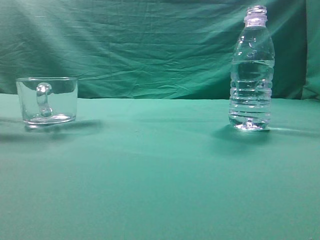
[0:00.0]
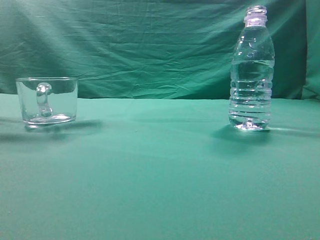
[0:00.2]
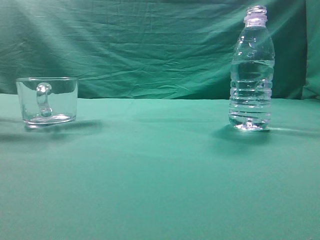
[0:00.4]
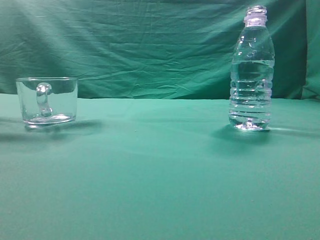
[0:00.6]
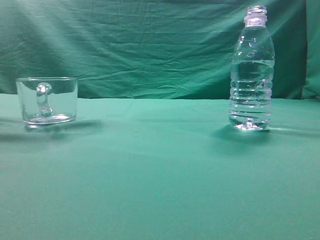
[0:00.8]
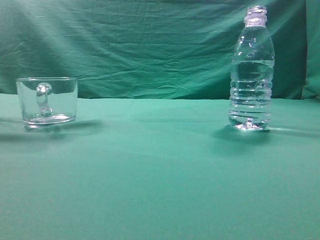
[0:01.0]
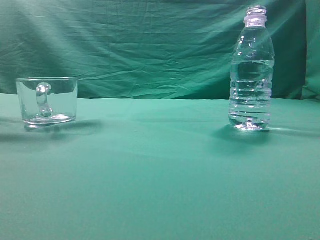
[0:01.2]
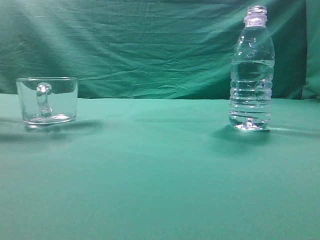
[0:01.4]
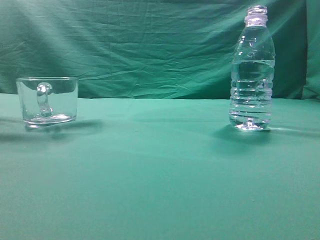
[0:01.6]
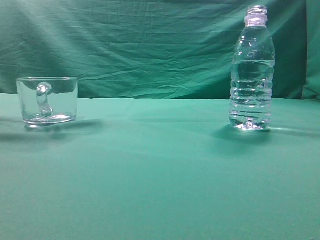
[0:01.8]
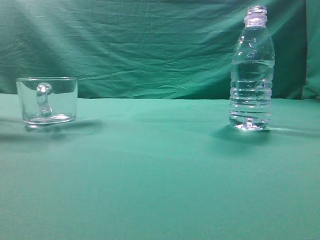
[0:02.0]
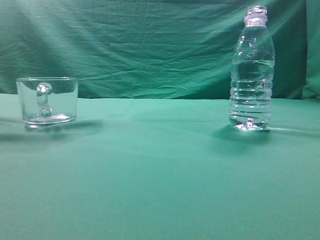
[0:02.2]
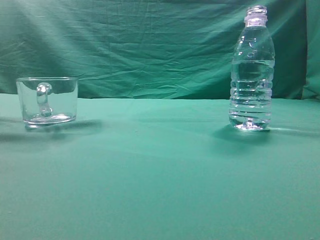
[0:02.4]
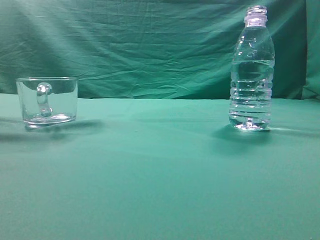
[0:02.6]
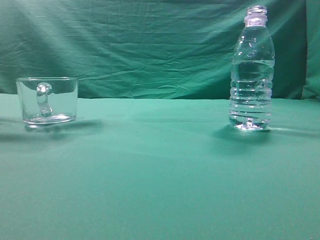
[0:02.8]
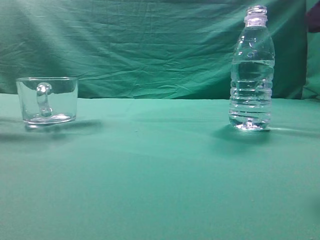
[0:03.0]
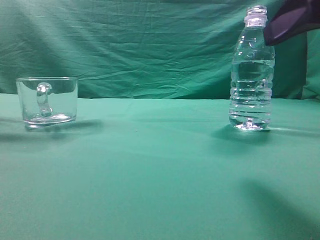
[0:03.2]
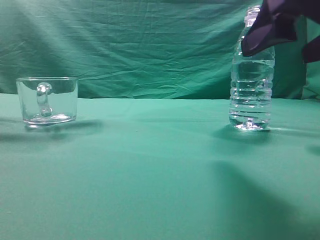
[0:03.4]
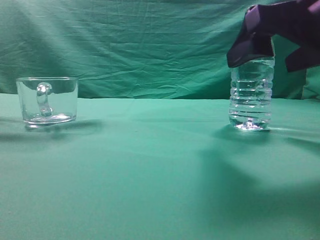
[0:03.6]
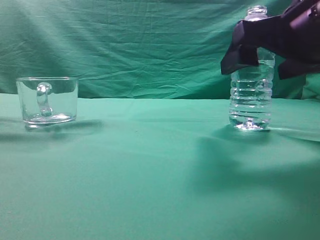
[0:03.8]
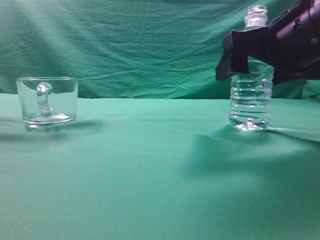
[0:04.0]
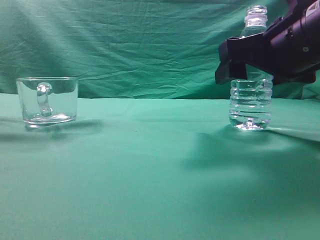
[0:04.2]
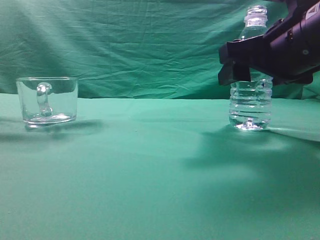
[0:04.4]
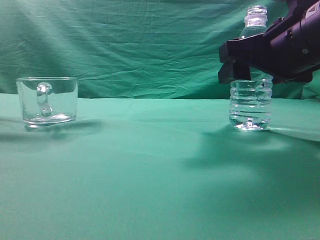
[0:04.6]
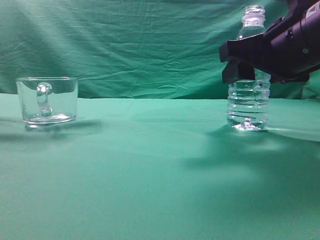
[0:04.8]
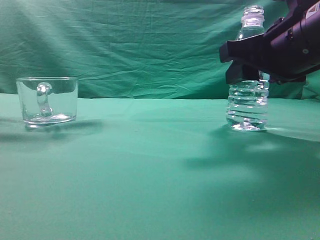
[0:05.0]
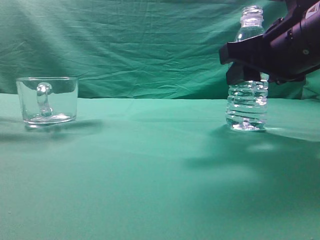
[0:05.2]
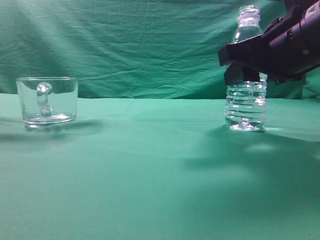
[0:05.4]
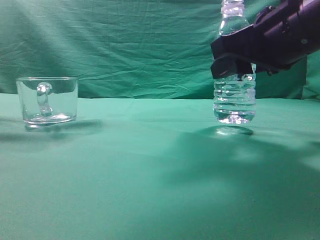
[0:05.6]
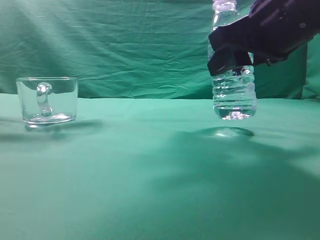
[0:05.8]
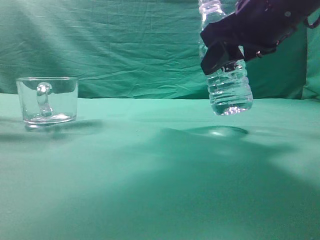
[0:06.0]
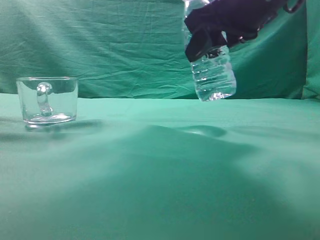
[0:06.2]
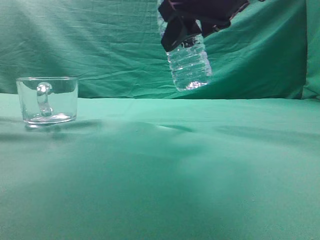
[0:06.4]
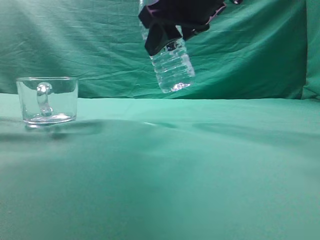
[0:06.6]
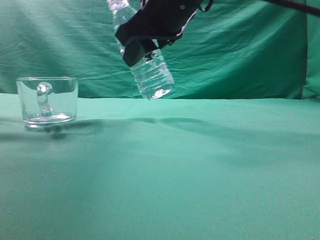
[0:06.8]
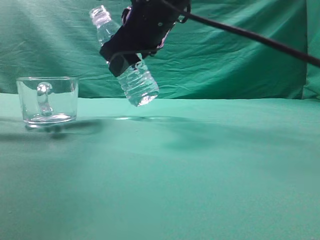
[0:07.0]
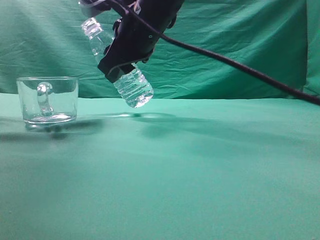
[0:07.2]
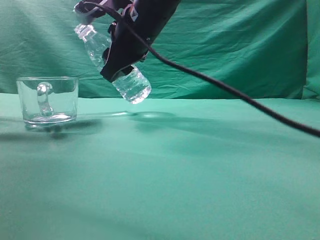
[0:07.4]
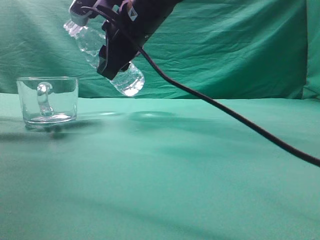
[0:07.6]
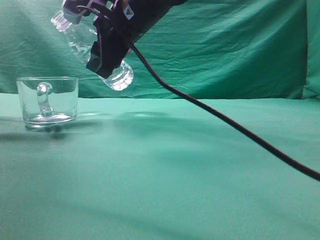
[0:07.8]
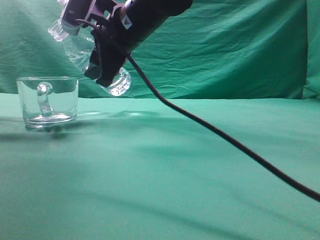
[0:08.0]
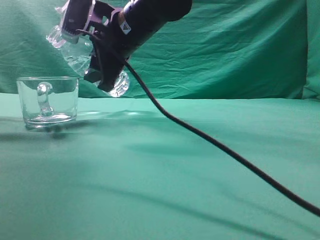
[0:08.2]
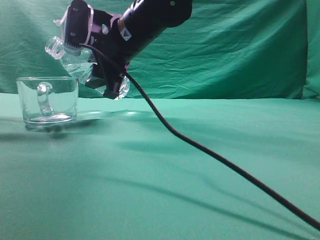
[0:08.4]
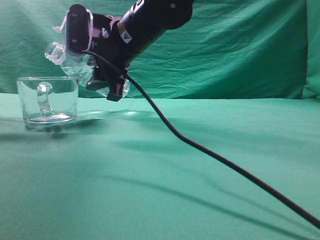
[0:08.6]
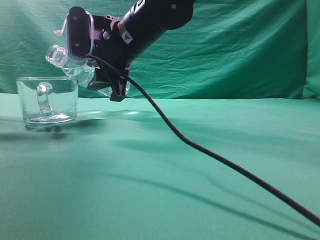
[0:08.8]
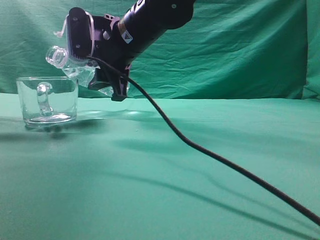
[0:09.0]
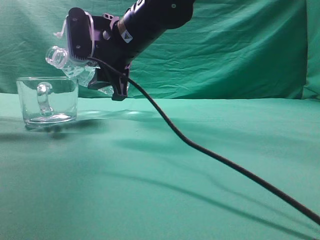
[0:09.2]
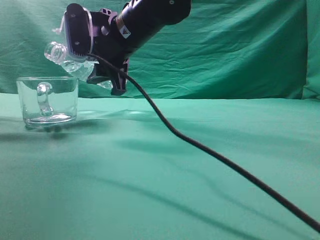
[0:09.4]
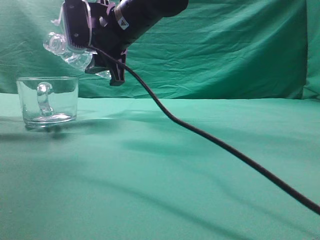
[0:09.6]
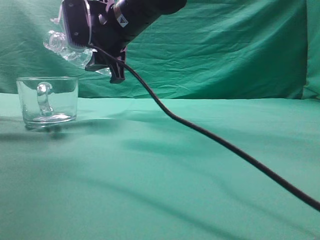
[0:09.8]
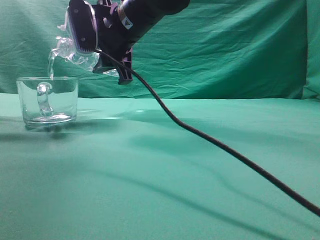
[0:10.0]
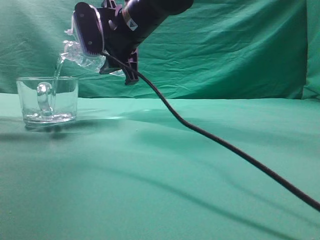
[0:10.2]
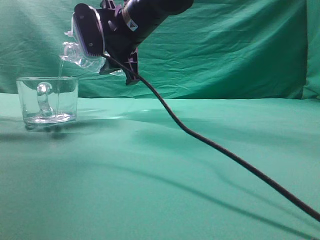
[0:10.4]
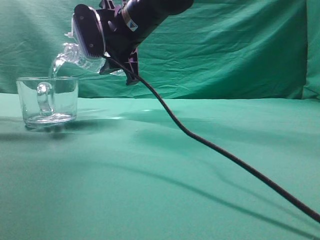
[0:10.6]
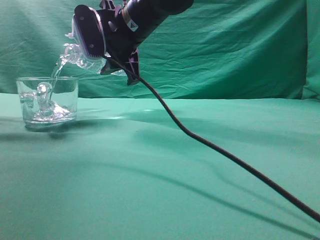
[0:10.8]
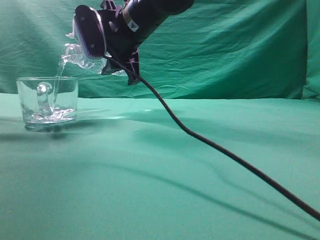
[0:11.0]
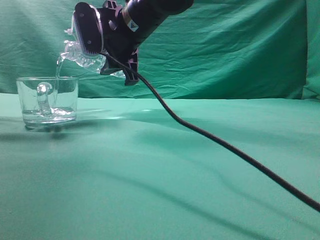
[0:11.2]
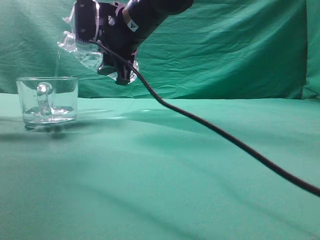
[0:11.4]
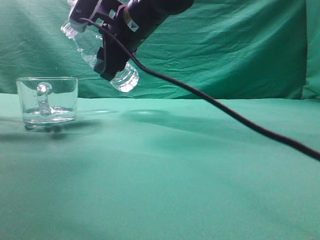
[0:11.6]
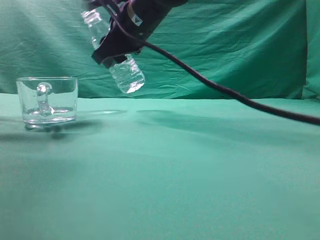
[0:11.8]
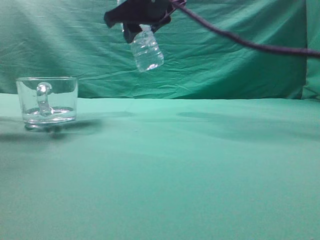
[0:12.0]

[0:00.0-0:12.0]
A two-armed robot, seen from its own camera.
Task of the whole recording: pick up the water bottle and pour the water in it into the glass.
Step, 0:00.0 to 0:06.2: Grasp the mineral water bottle.
Step, 0:06.4 to 0:11.6: Pour water into the teacup.
0:03.0 to 0:04.4: The right gripper goes some 15 cm forward and to the left.
0:04.4 to 0:06.0: The right gripper shifts by approximately 5 cm.
0:06.0 to 0:07.6: The right gripper heads to the left and forward, covering about 20 cm.
0:09.0 to 0:10.4: There are only small adjustments of the grippers.
0:10.4 to 0:12.0: The right gripper moves upward, approximately 5 cm.

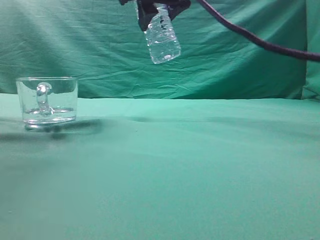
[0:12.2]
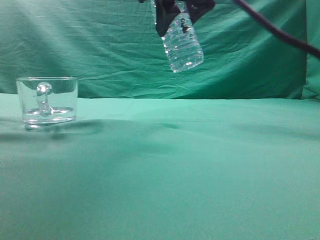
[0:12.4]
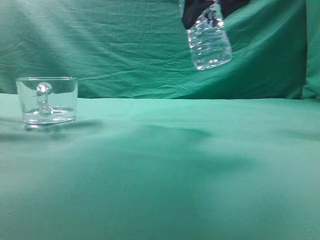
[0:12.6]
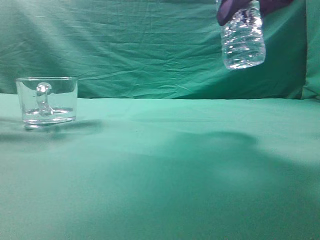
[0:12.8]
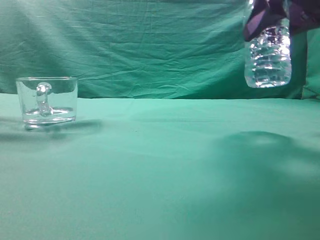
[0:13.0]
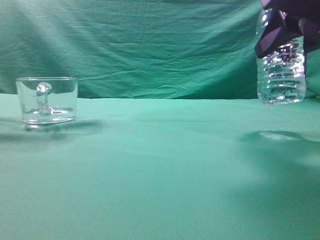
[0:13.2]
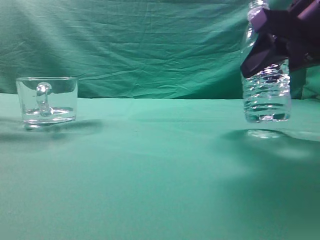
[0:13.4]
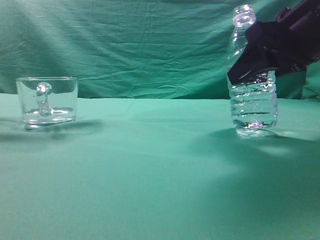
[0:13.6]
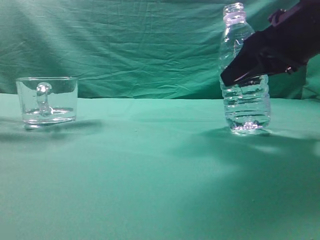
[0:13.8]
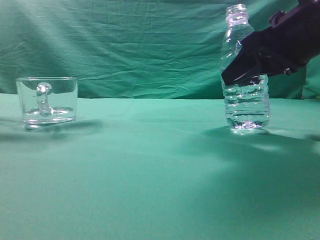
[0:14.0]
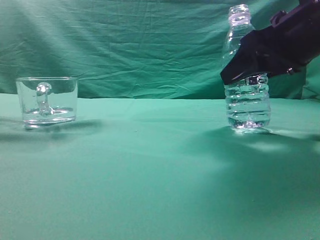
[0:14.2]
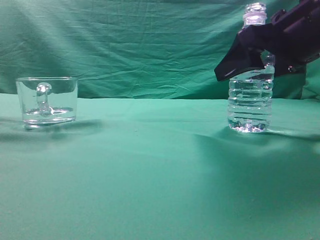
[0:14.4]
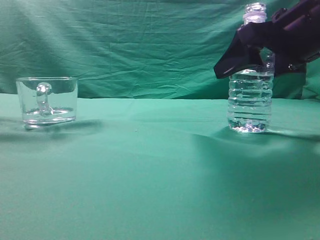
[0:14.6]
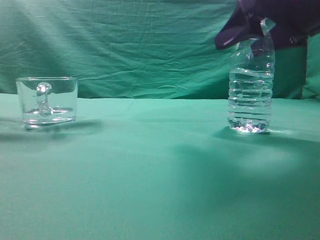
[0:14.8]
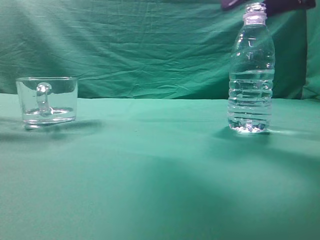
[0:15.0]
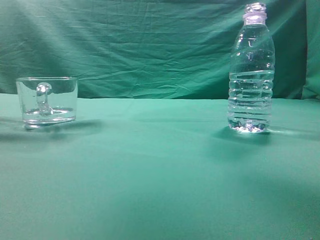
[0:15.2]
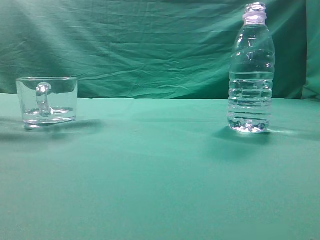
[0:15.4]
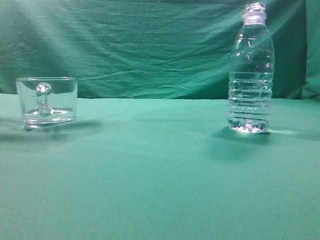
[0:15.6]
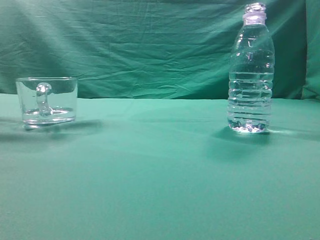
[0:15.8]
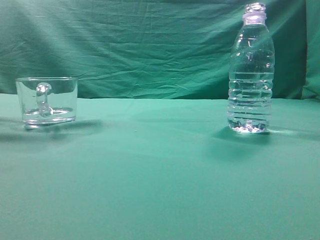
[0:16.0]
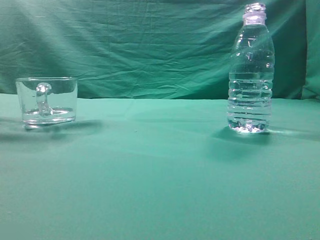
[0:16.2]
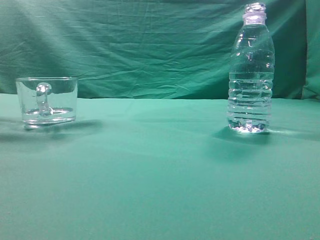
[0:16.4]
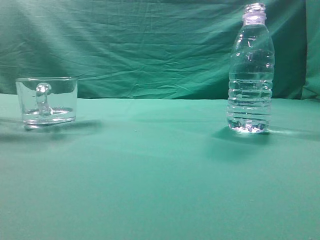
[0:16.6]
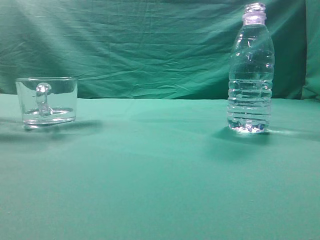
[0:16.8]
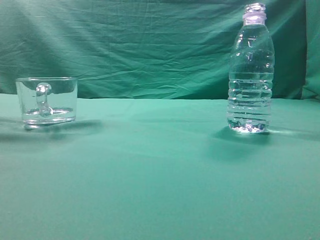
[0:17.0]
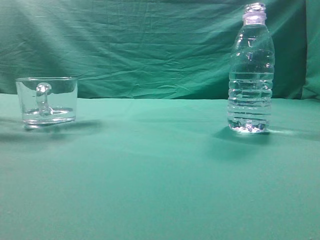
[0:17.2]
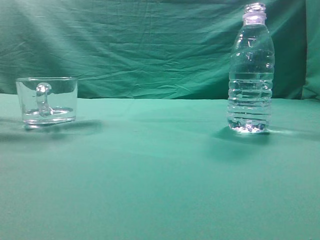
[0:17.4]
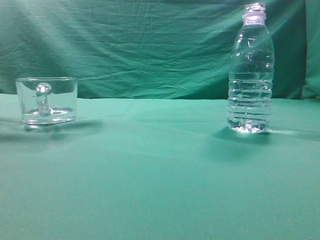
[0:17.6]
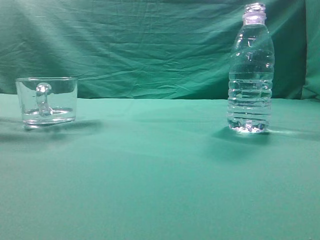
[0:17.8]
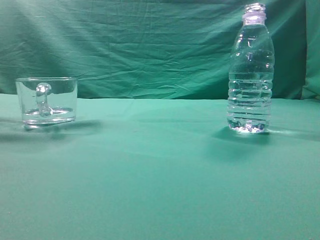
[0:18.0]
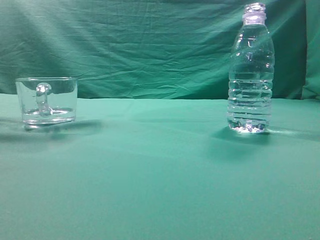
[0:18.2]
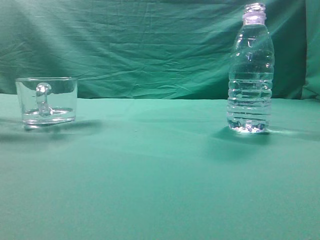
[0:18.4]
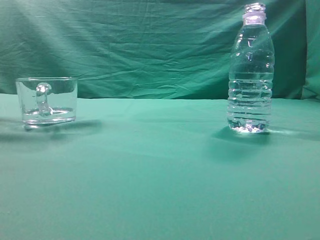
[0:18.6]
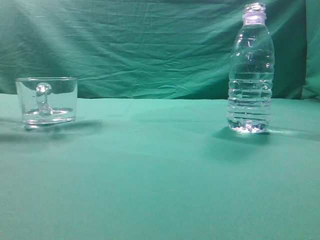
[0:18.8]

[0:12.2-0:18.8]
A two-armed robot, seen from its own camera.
Task of the whole recording: pick up the water bottle and pour the water in it into the glass.
0:12.2 to 0:13.8: The right gripper is displaced to the right, downward and backward by approximately 20 cm.
0:13.8 to 0:15.4: The right gripper heads upward and backward, covering approximately 20 cm, and closes its fingers.
